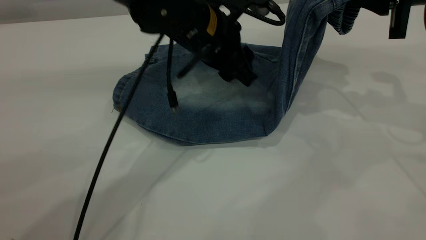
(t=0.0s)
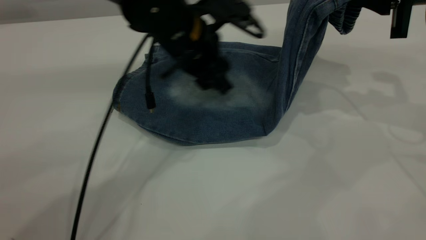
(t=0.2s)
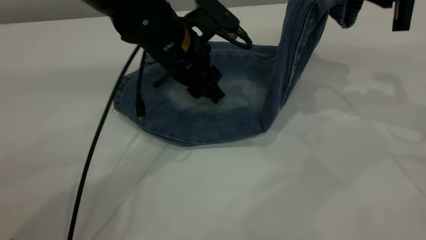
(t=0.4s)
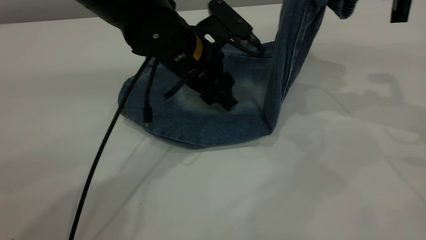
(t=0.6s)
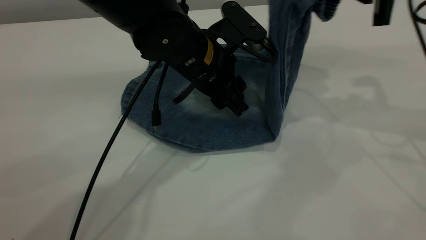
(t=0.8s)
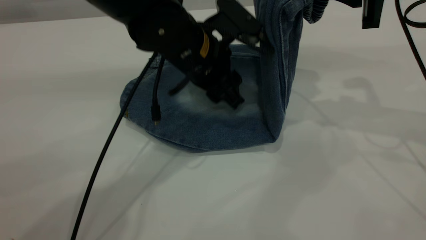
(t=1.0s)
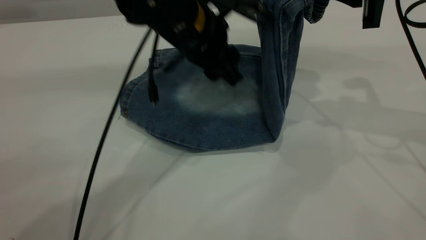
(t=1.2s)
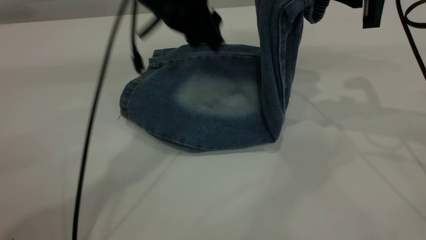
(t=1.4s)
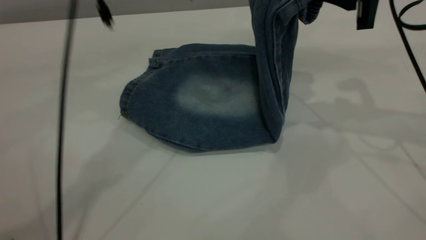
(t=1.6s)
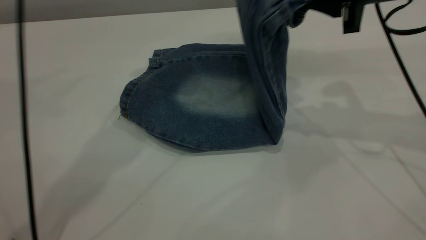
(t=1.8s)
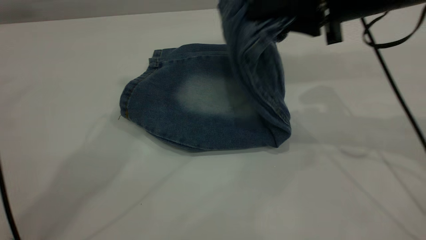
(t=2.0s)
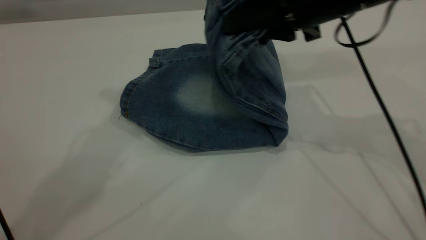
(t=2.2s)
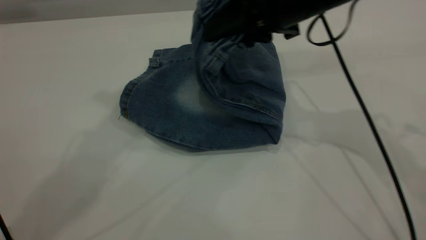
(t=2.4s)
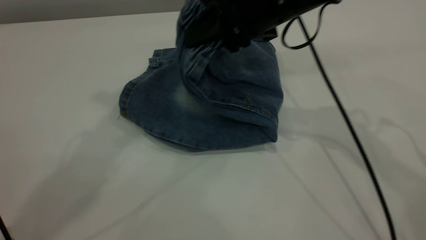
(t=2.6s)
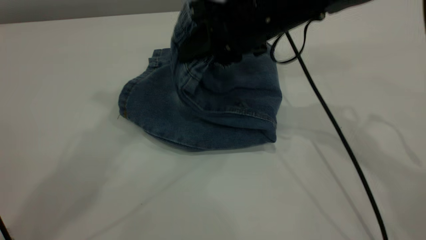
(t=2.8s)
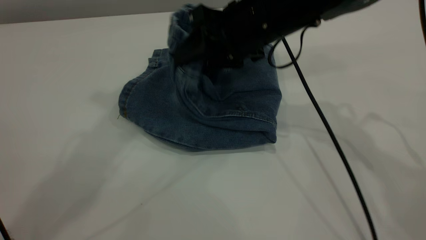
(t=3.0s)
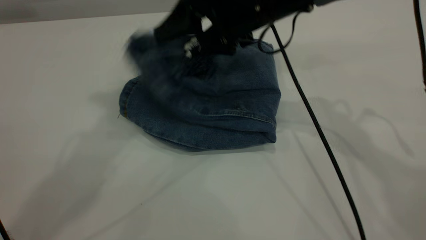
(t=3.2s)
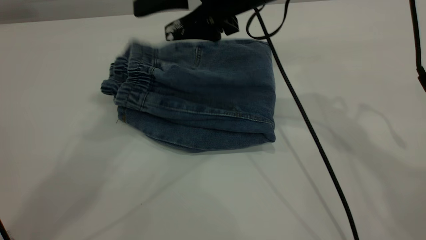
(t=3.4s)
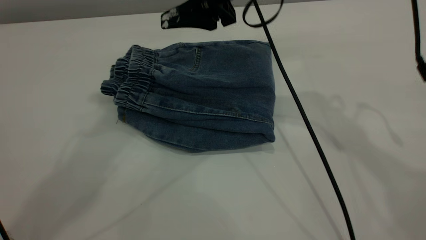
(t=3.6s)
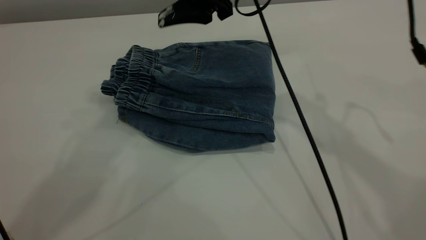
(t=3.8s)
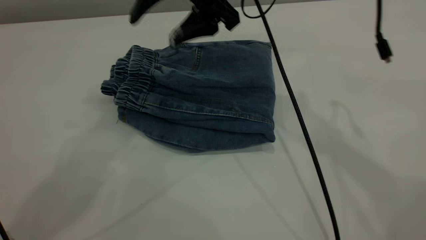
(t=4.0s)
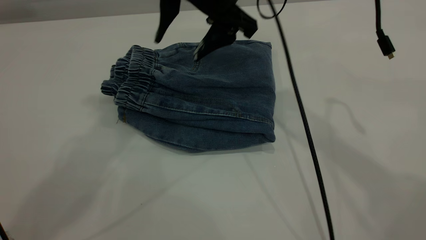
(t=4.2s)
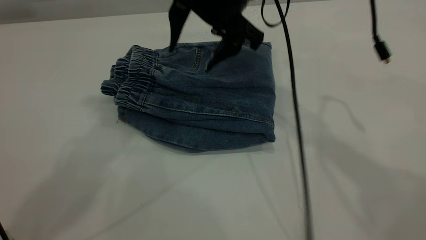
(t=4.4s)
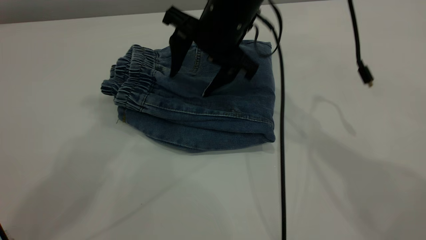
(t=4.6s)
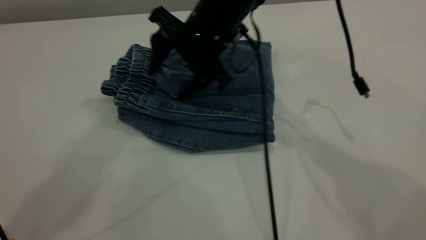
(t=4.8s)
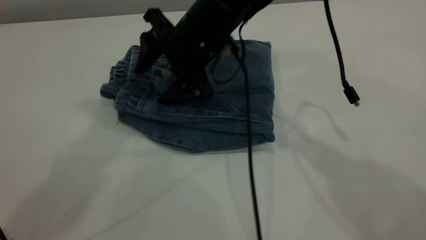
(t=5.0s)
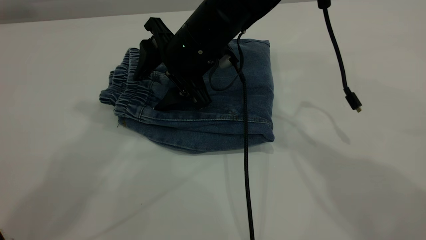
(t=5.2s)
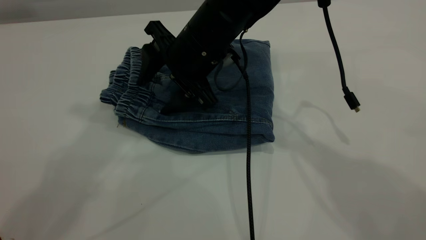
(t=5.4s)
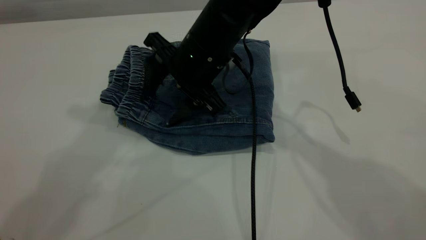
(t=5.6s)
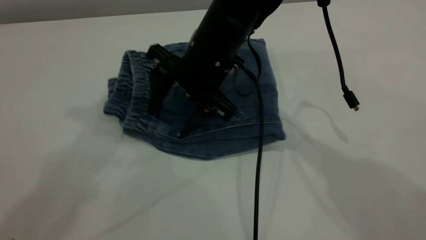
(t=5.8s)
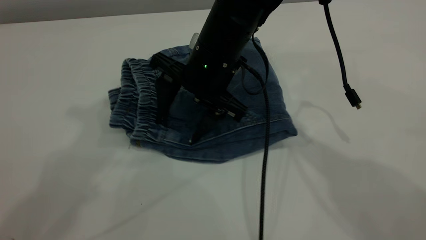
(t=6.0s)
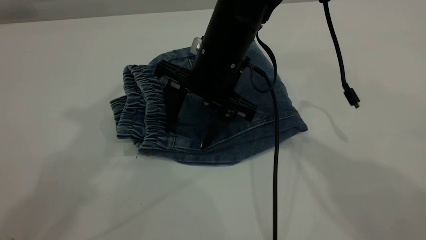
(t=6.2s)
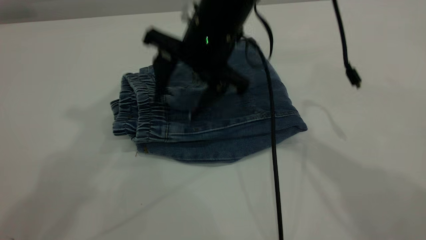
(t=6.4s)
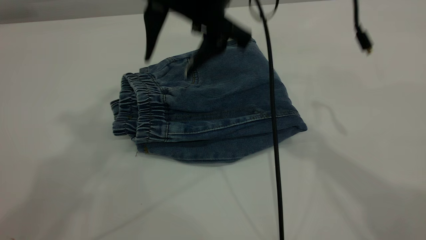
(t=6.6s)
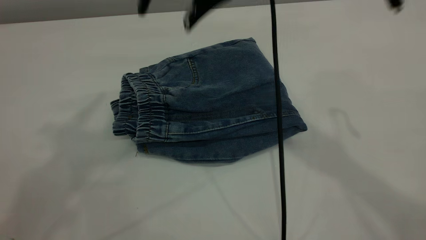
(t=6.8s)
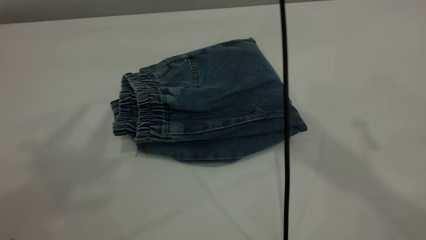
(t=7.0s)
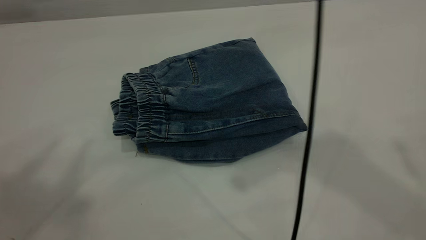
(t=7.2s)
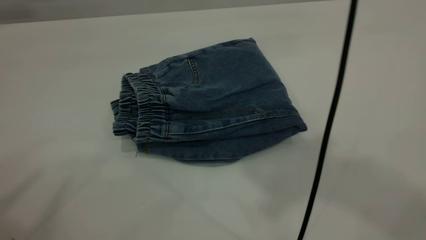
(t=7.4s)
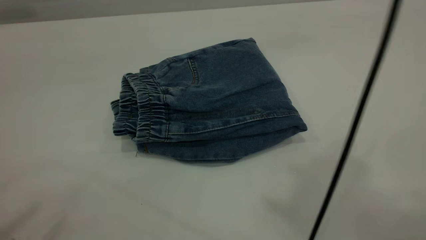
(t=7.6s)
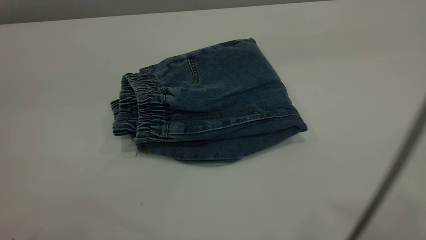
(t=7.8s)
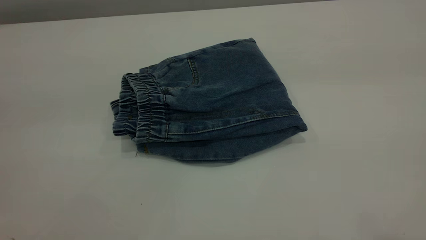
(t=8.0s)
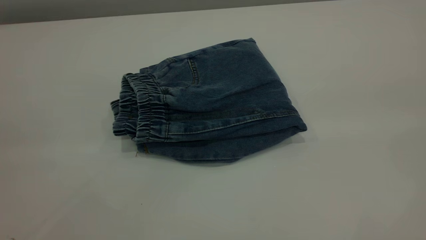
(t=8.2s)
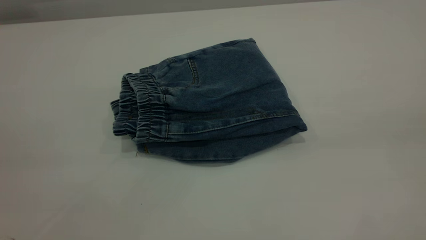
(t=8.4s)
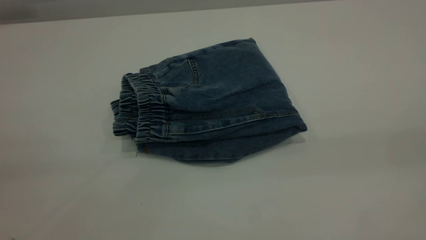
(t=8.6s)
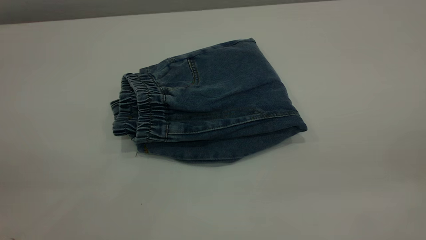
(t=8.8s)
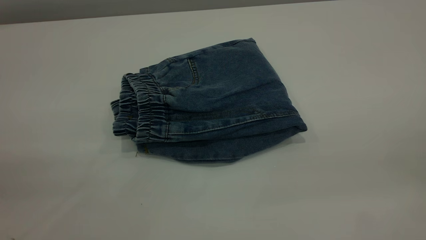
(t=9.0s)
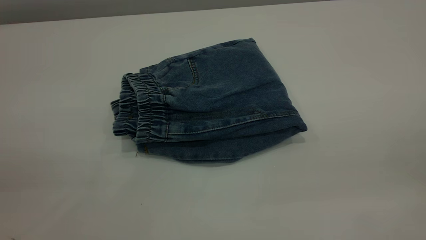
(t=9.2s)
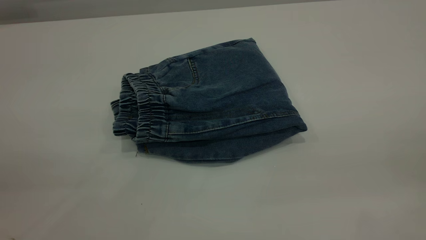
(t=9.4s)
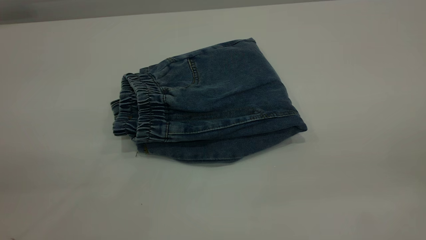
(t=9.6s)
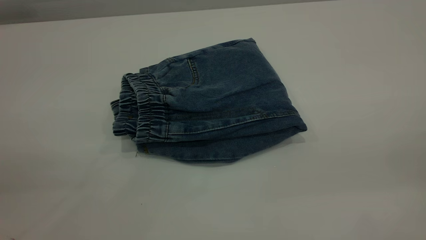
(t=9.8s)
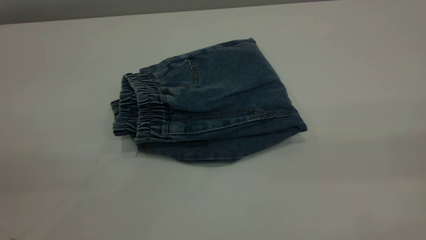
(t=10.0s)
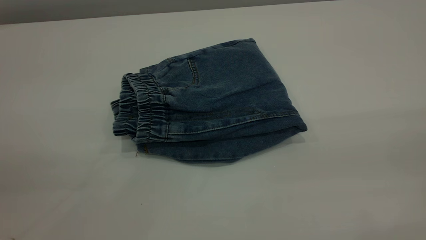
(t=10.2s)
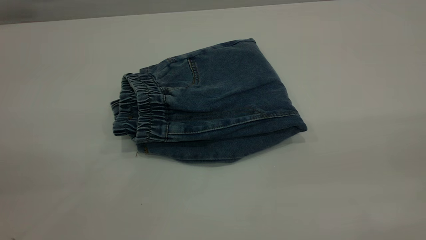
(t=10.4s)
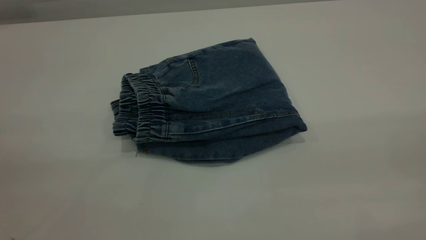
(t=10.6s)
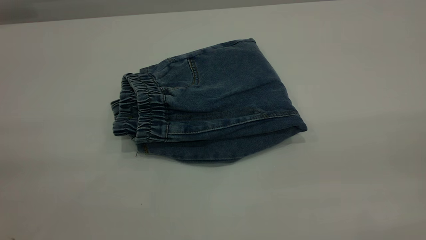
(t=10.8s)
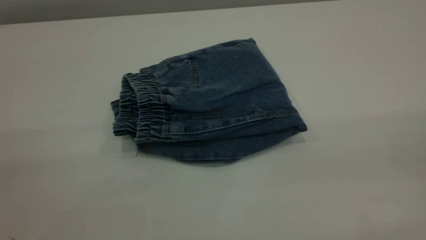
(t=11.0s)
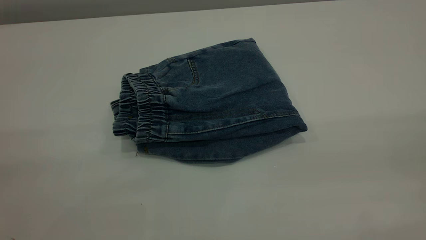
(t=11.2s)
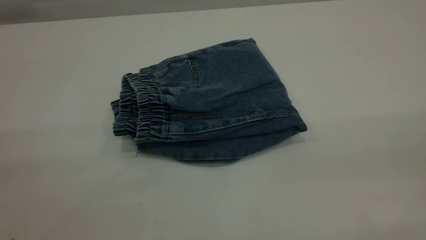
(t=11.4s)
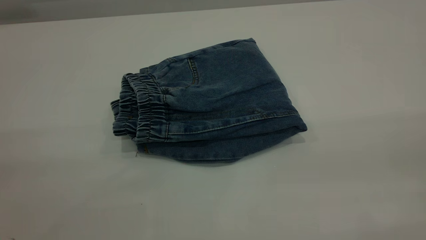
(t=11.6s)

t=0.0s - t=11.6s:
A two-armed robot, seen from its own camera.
Step, t=0.0s - t=3.6s: Fold your pants from right to left.
t=0.0s - t=1.4s: The left gripper is displaced upward by about 5 cm.
t=1.4s - t=2.8s: The right gripper goes roughly 15 cm to the left; the left gripper travels upward by approximately 25 cm.
t=2.8s - t=4.4s: The right gripper shifts by roughly 5 cm, and opens.
t=4.4s - t=5.8s: The right gripper goes roughly 5 cm downward.
t=5.8s - t=7.2s: The left gripper heads backward, to the left and upward, covering approximately 15 cm; the right gripper travels upward by some 30 cm.
t=7.2s - t=8.8s: The left gripper shifts approximately 25 cm downward and backward, while the right gripper shifts roughly 30 cm backward and to the right.
